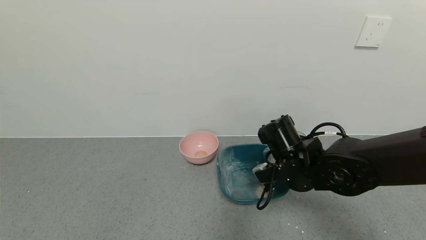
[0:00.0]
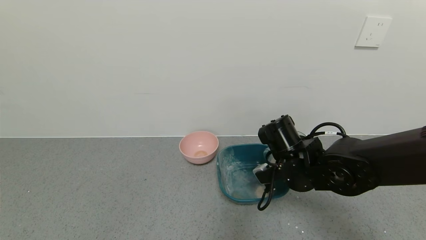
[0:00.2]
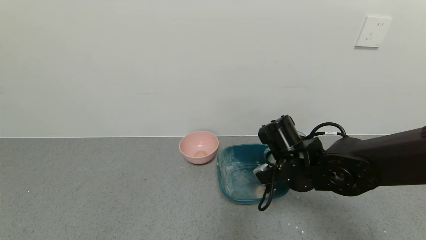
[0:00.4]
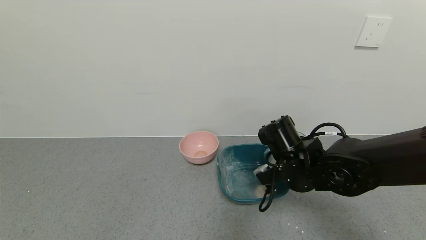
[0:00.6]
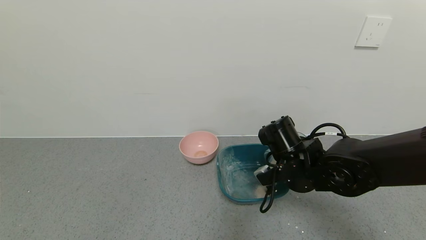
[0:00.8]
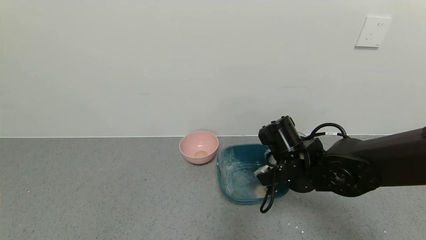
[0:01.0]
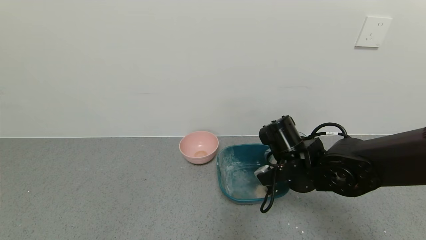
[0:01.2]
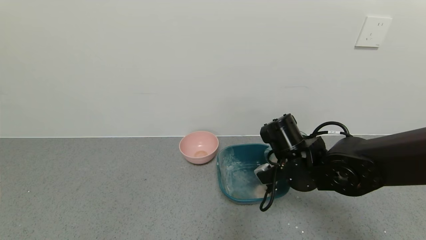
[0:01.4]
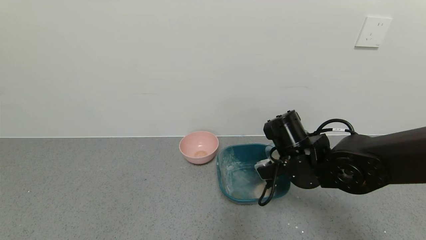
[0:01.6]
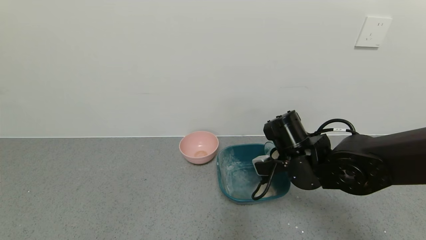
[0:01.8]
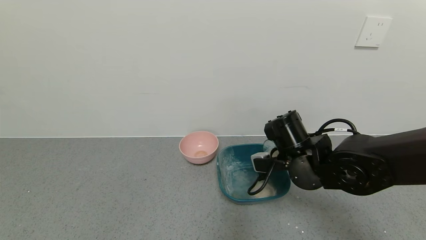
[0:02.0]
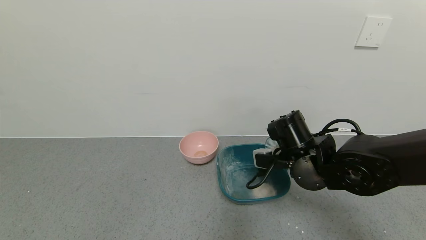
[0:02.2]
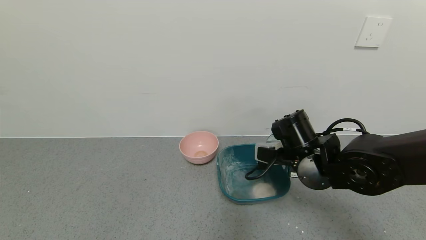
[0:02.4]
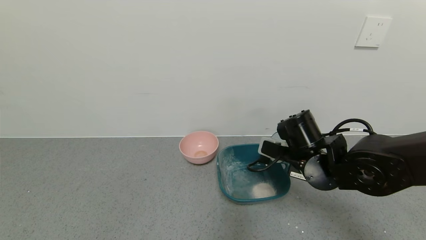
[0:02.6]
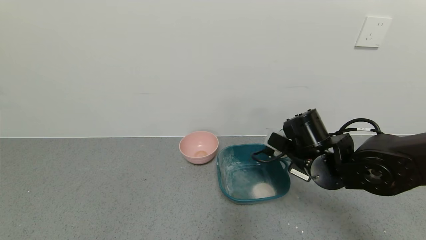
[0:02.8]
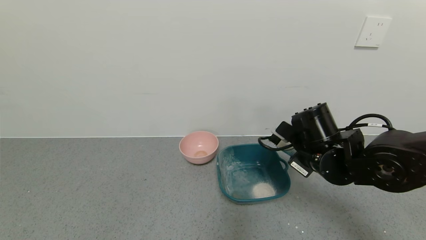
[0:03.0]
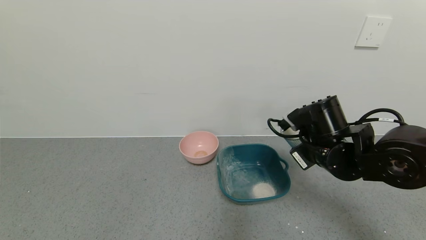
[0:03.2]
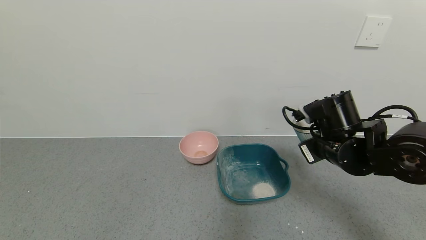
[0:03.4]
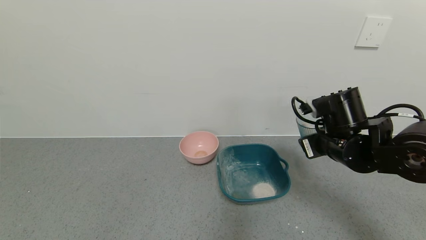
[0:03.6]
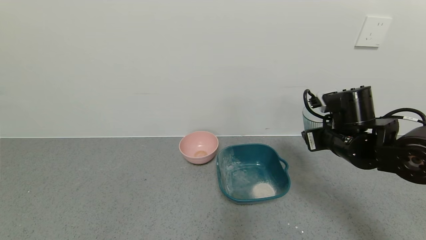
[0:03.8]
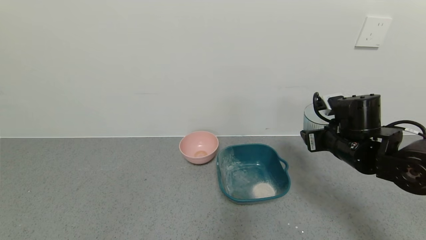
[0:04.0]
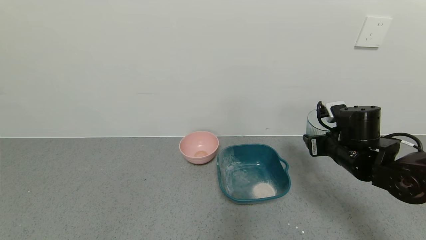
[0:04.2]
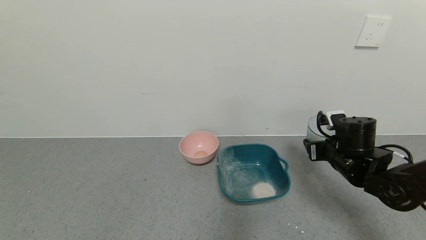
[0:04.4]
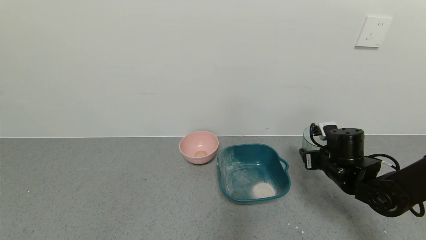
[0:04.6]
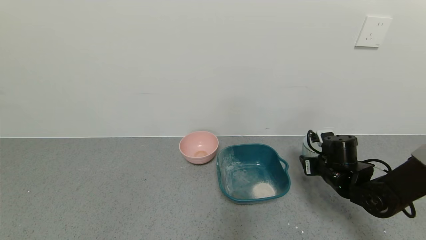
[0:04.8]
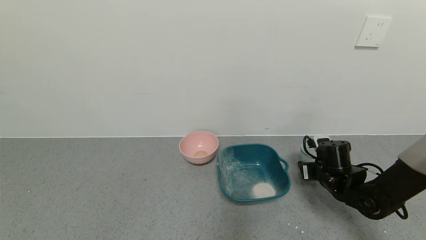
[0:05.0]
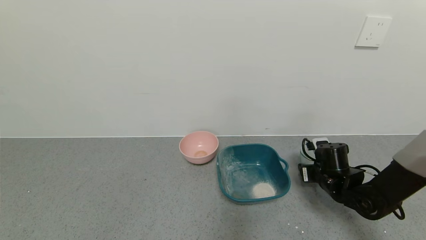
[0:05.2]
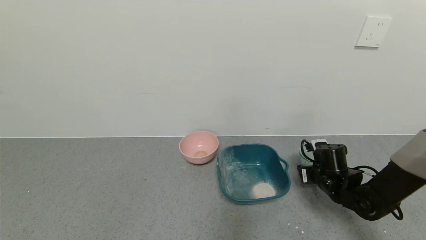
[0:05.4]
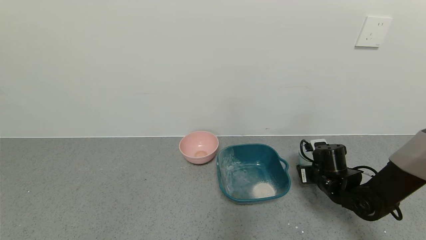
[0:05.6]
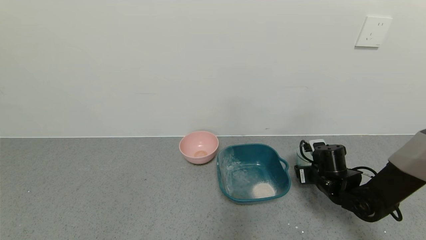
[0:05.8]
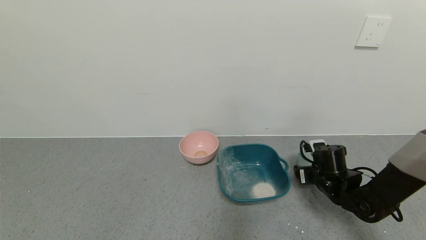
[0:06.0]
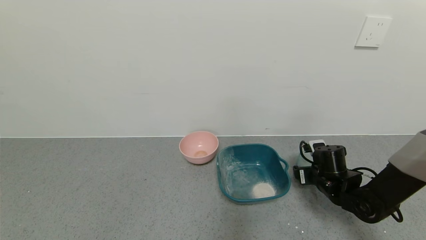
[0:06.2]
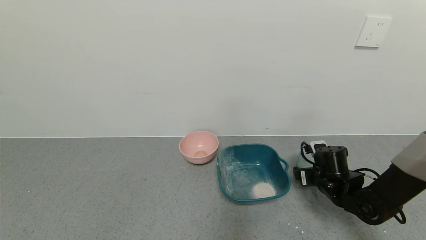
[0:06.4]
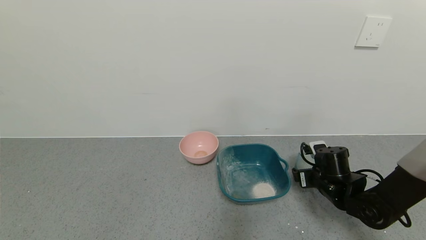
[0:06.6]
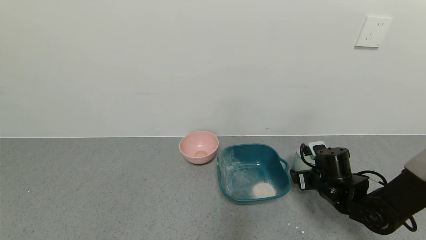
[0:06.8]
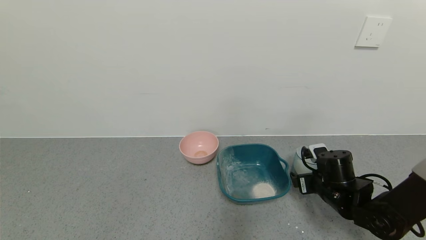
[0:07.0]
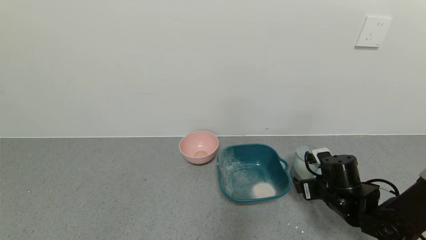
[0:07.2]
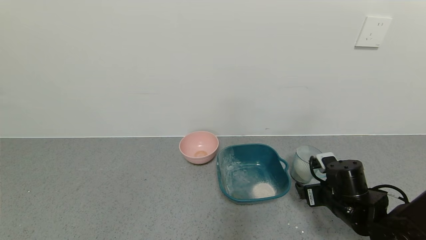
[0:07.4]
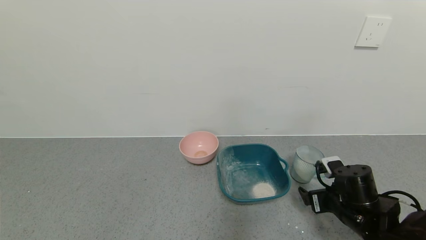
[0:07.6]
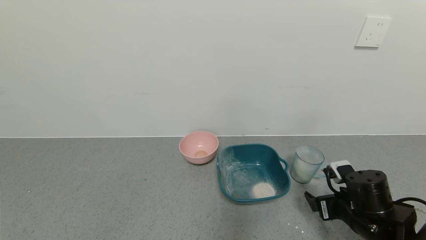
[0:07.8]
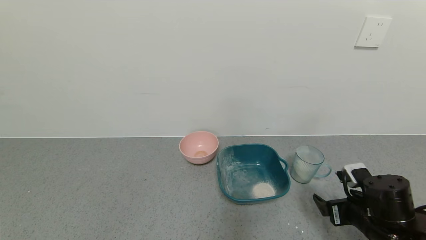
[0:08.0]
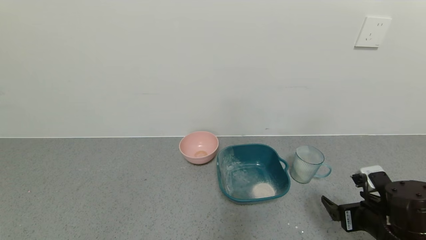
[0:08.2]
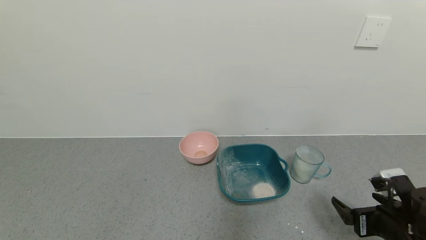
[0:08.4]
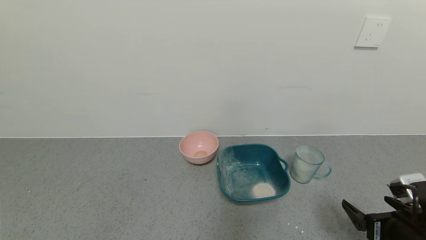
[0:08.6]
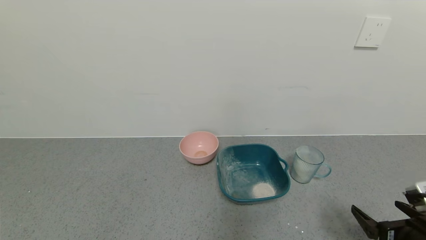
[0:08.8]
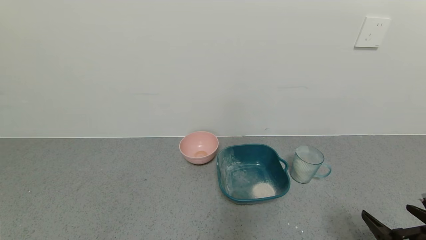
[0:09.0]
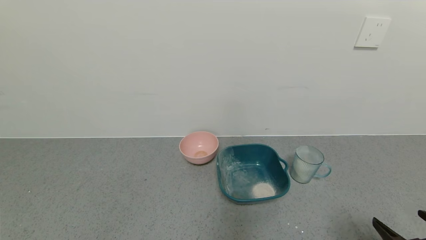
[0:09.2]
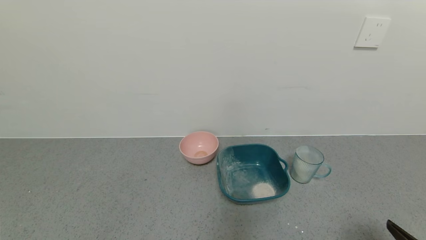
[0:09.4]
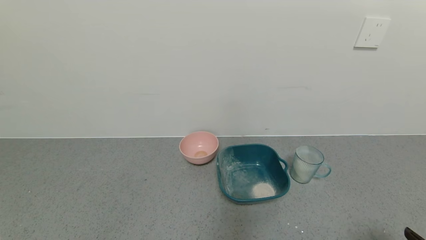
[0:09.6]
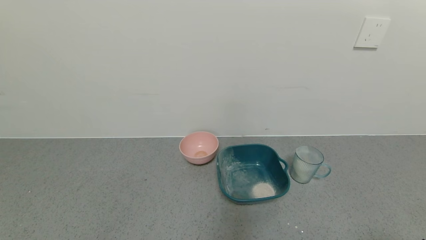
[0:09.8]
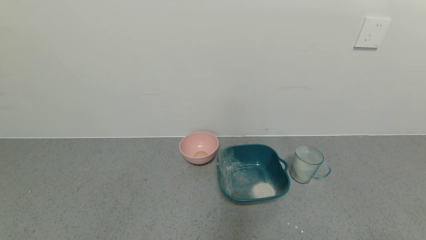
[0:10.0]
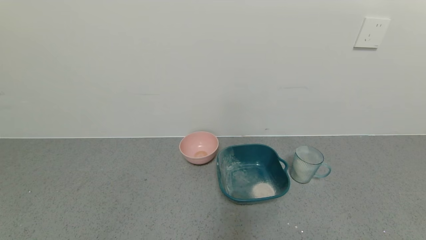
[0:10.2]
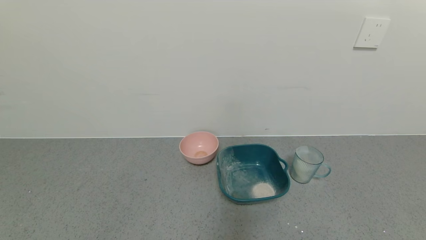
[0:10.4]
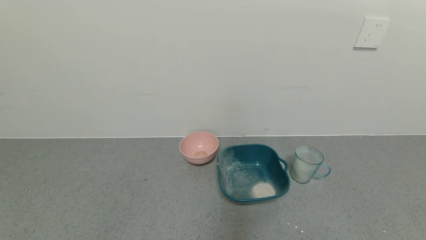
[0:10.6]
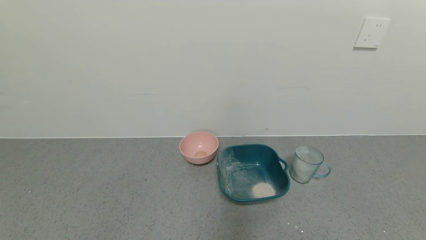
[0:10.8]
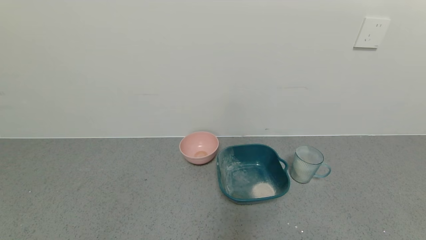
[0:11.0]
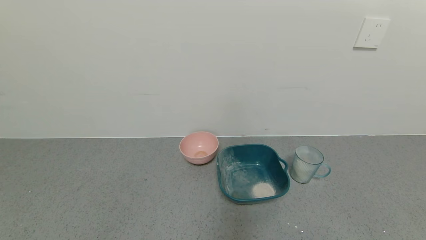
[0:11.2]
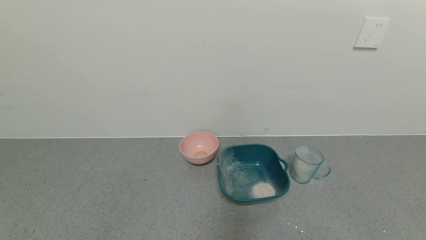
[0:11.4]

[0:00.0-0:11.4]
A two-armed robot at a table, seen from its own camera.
Task of the whole recording: use a gripper to pick up the cup and pour the powder into a bowl or tray.
Step, 0:01.8 to 0:07.0: Place the glass cup down with the right gripper.
0:00.0 to 0:01.4: Both grippers stay about where they are.
0:02.8 to 0:04.2: The right gripper moves to the right, roughly 10 cm.
0:04.2 to 0:05.6: The right gripper goes about 10 cm downward.
0:05.6 to 0:07.2: The right gripper goes some 5 cm backward, and opens up.
0:07.2 to 0:08.6: The right gripper goes roughly 15 cm backward and to the right.
0:08.6 to 0:10.0: The right gripper is displaced backward by roughly 15 cm.
